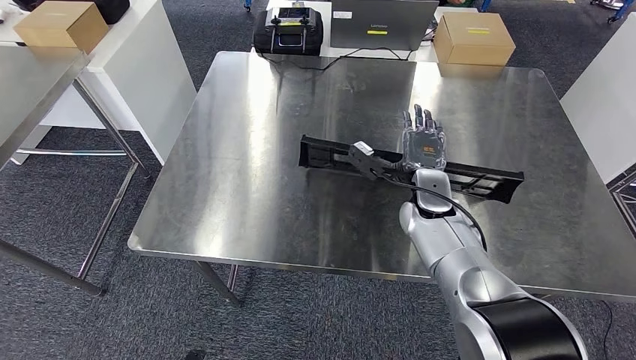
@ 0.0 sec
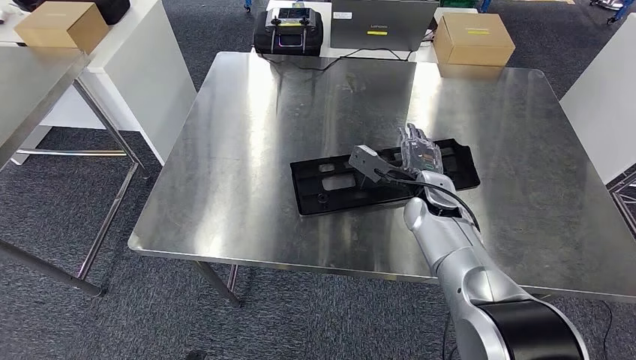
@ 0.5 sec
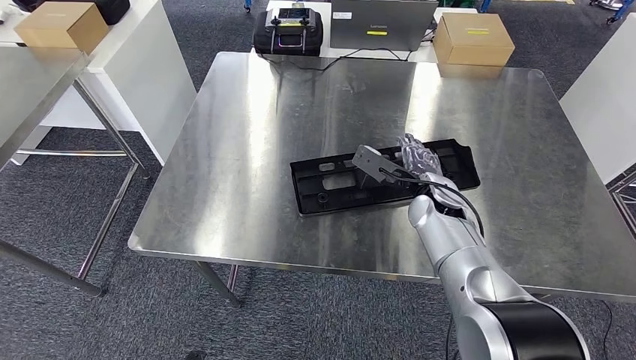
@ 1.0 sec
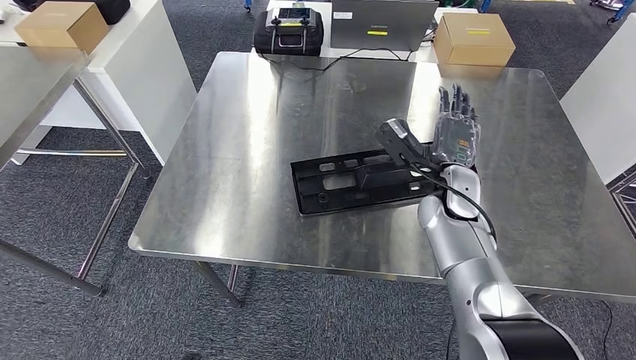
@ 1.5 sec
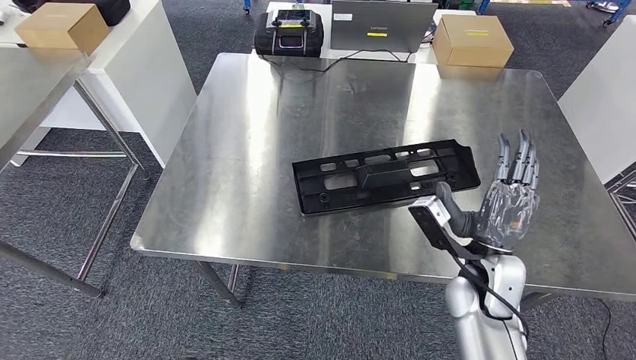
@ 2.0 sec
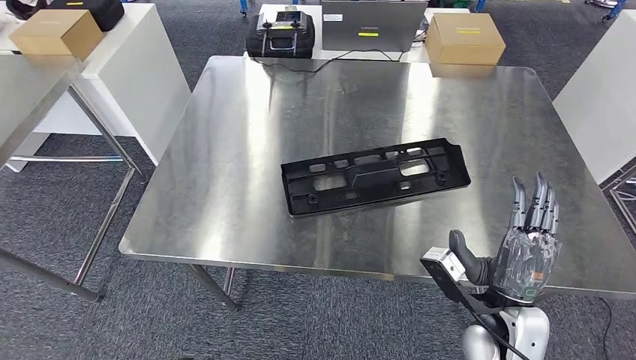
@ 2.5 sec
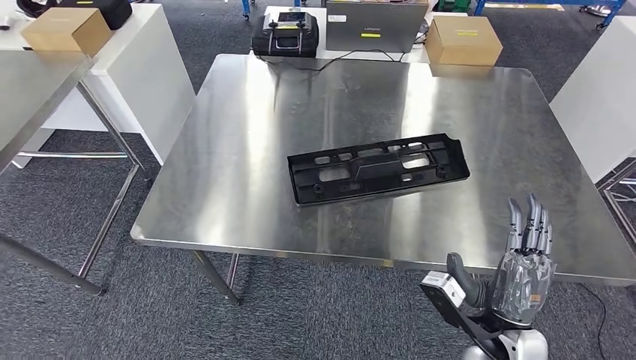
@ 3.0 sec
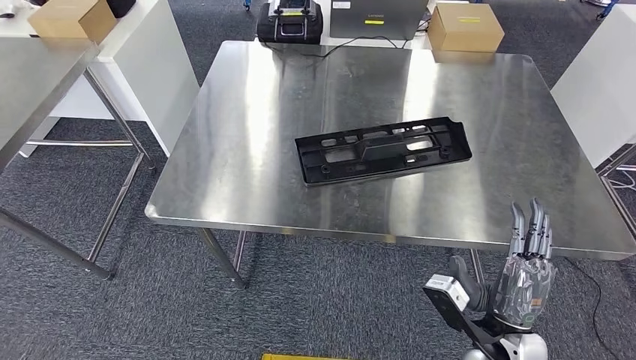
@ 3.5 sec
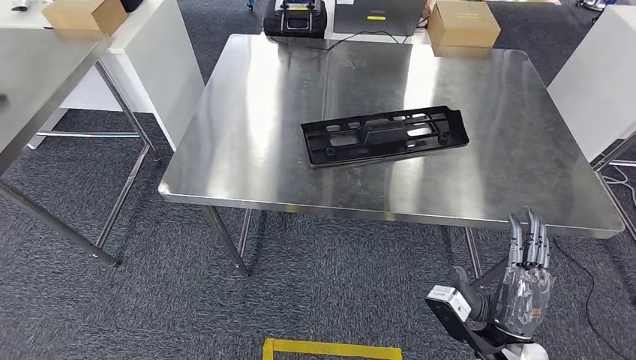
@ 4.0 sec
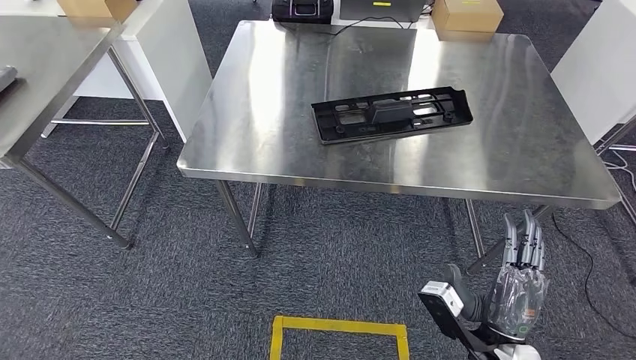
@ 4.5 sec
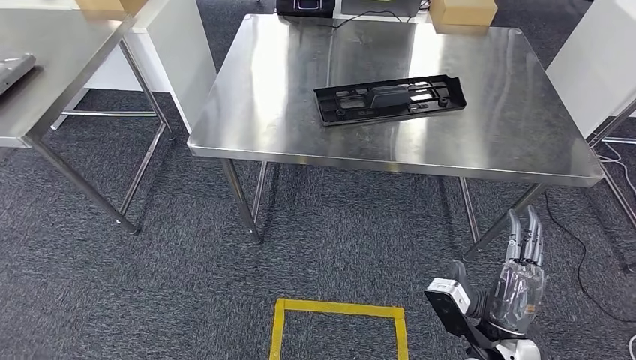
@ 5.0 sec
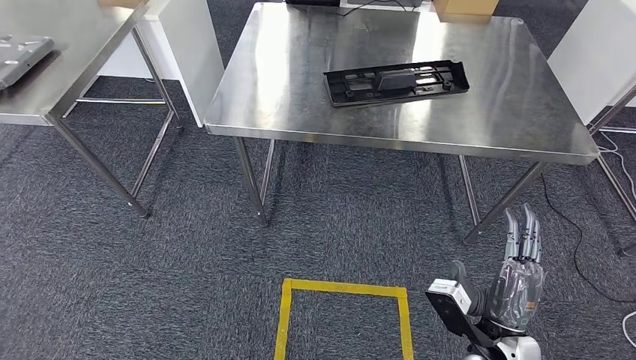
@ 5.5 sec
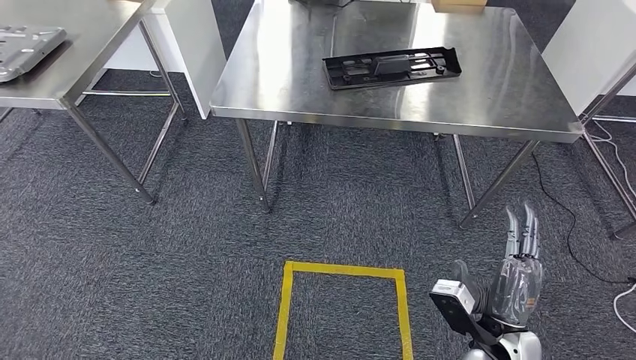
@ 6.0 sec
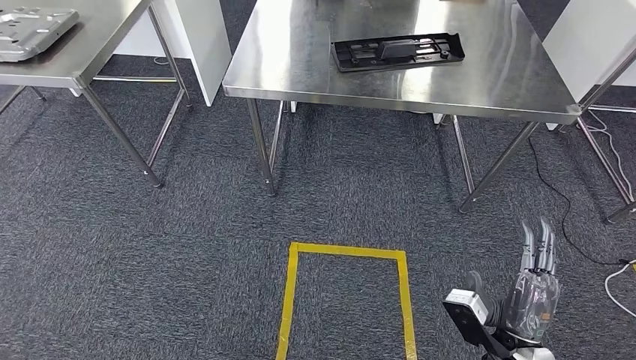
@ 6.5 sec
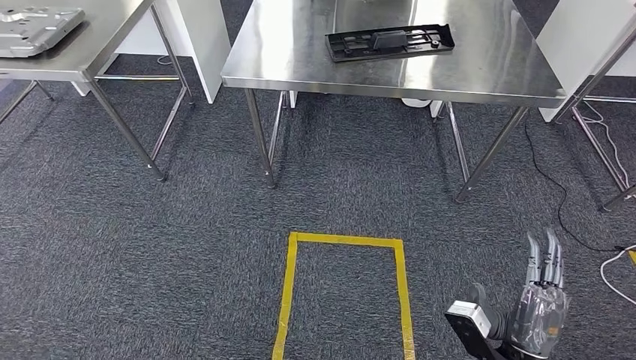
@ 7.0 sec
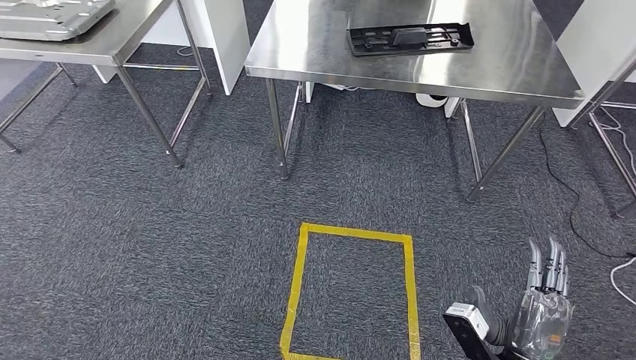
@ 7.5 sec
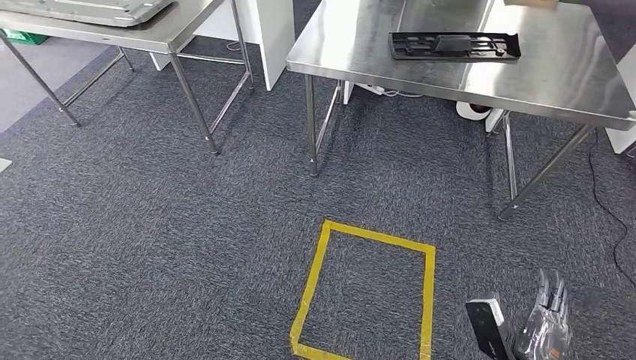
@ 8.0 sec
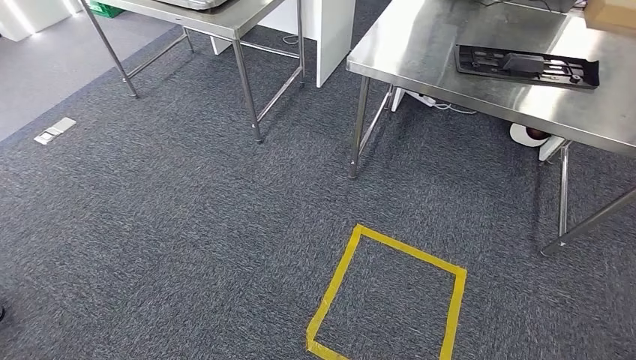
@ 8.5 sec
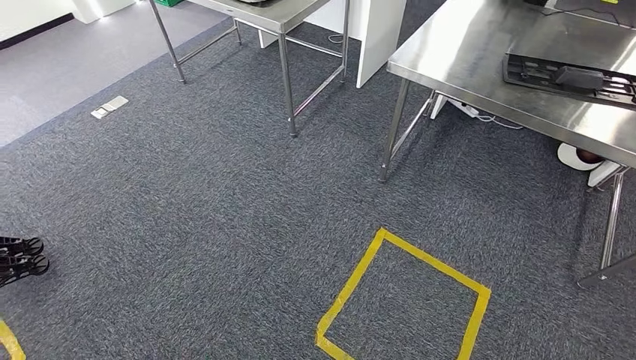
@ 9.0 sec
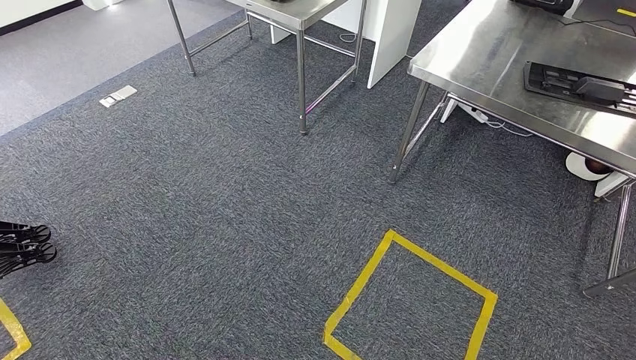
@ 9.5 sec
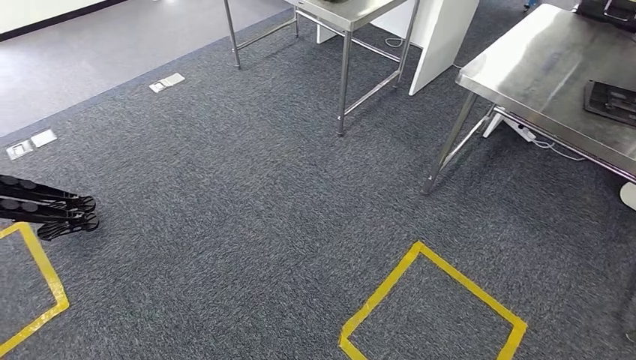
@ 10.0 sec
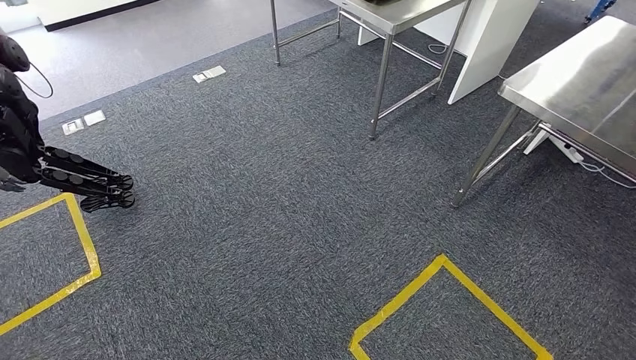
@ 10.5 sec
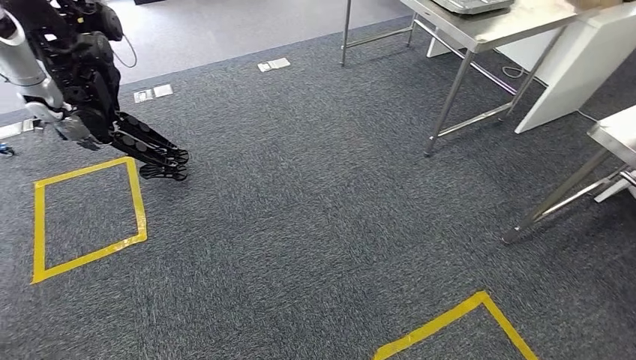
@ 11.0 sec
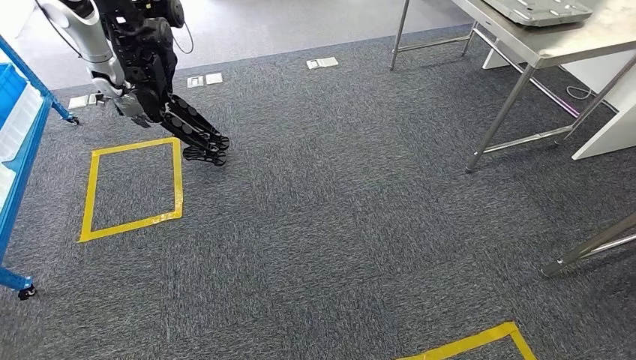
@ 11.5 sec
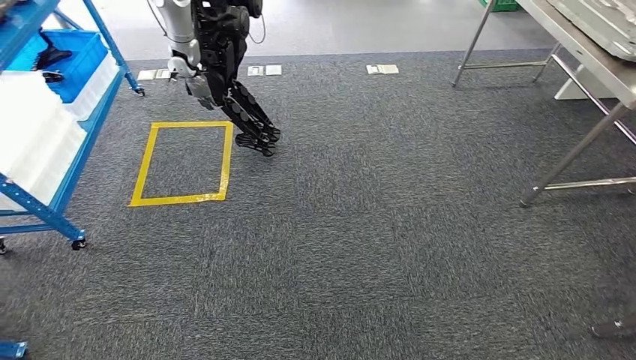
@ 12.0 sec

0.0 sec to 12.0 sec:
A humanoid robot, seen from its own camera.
Step, 0.0 sec to 5.5 sec: Insert the large material into the corresponding hole on the workbench.

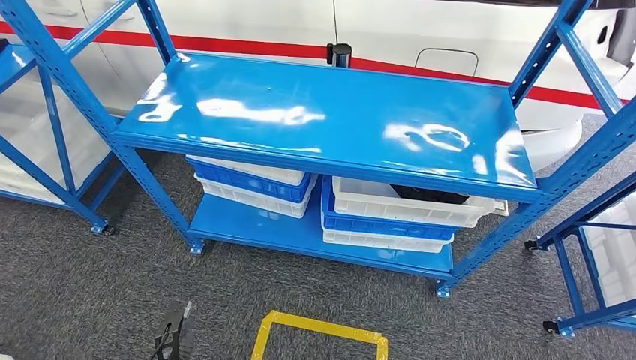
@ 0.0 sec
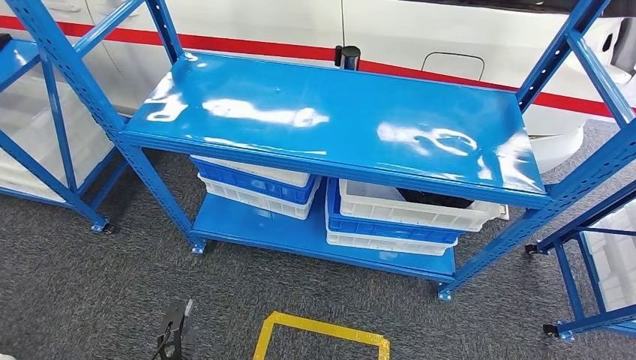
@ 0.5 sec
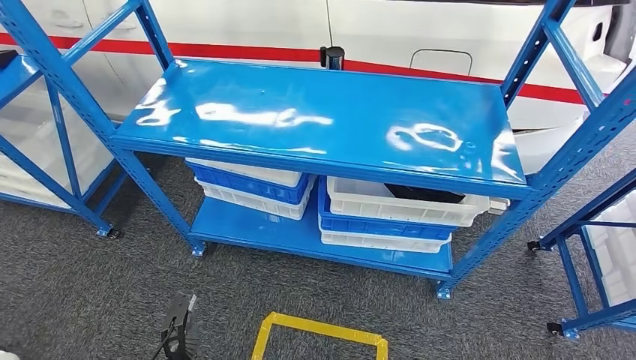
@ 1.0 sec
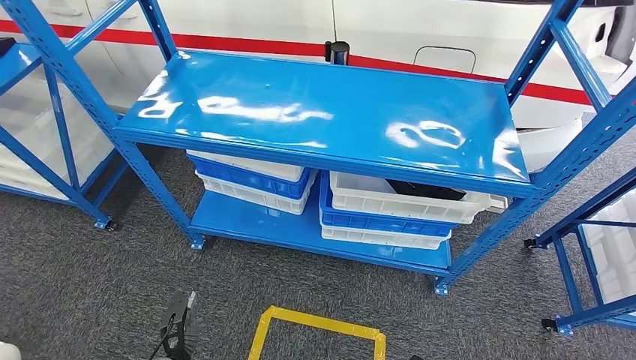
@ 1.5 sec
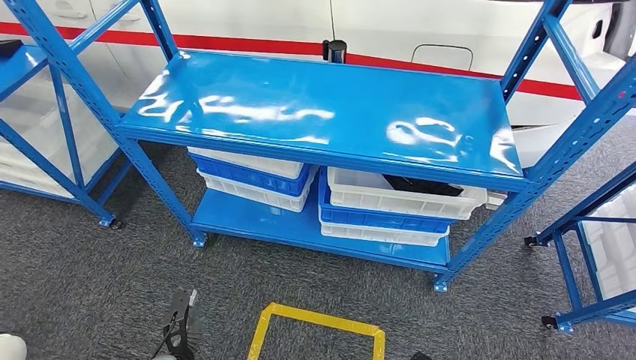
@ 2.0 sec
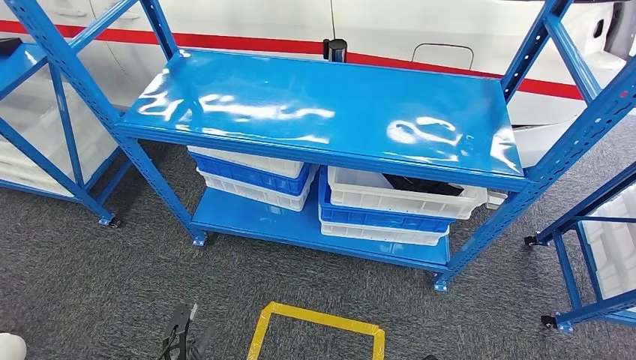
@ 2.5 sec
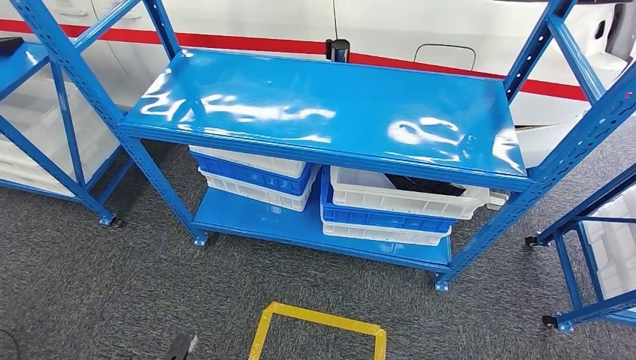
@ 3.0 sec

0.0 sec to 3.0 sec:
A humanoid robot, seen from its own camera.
Step, 0.0 sec to 3.0 sec: Move to the initial position of the shelf.
